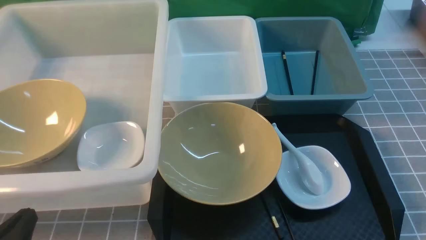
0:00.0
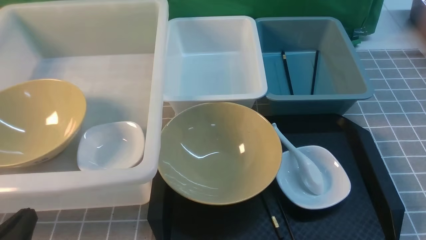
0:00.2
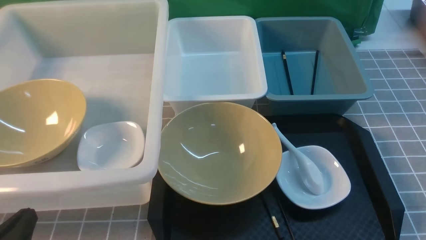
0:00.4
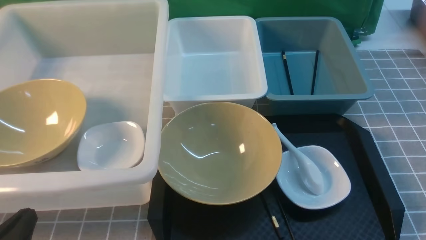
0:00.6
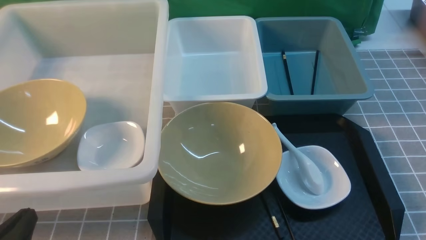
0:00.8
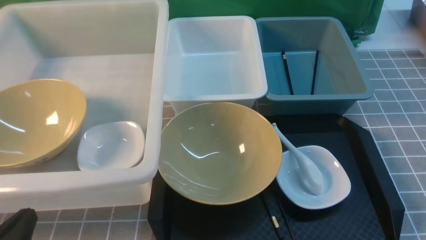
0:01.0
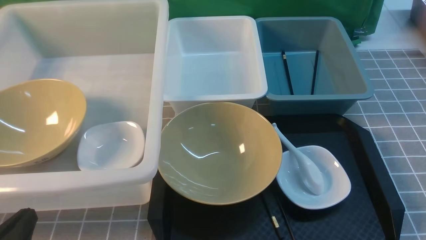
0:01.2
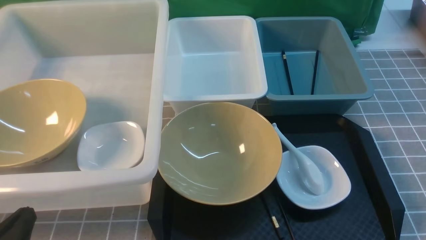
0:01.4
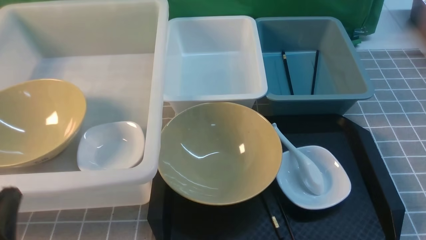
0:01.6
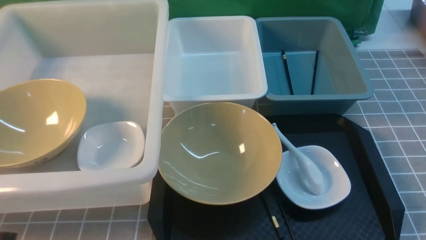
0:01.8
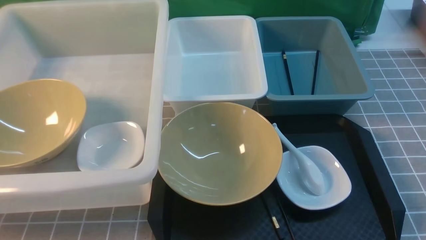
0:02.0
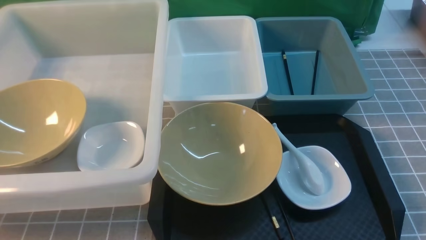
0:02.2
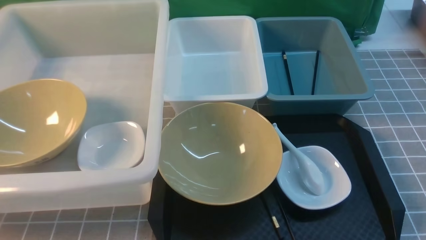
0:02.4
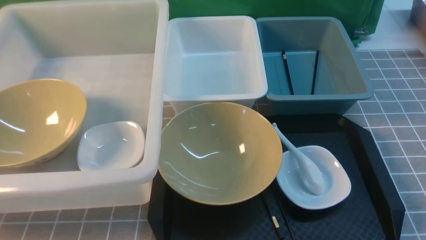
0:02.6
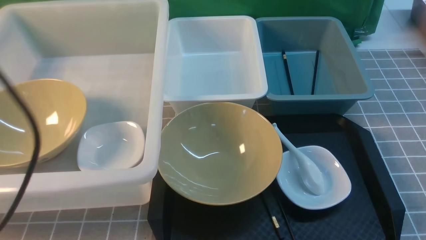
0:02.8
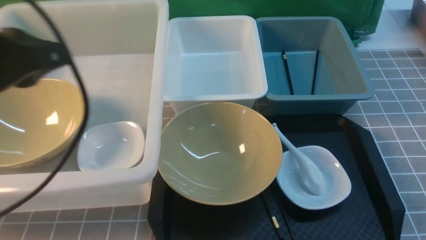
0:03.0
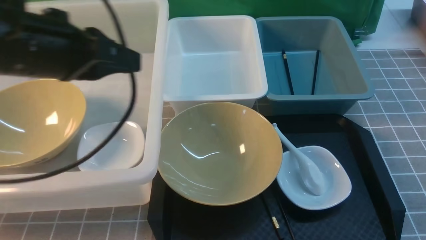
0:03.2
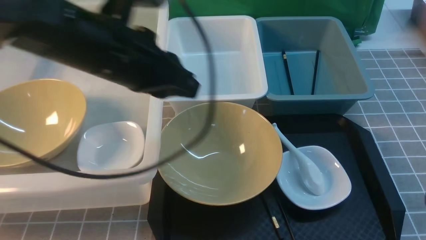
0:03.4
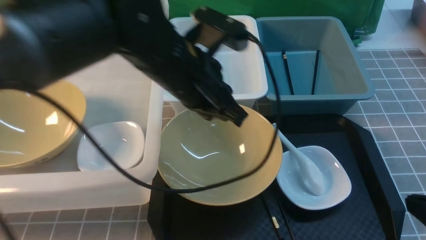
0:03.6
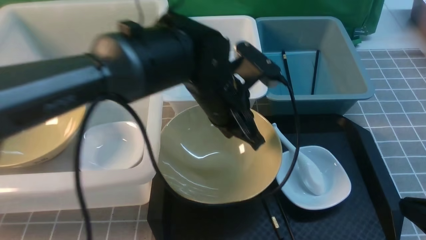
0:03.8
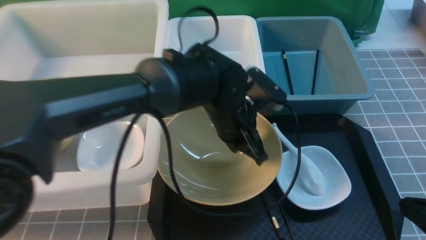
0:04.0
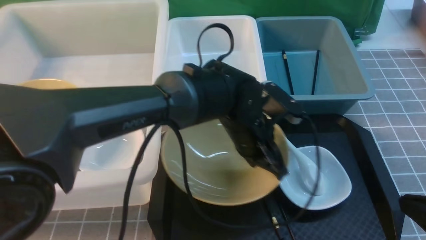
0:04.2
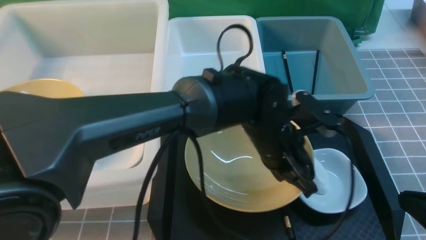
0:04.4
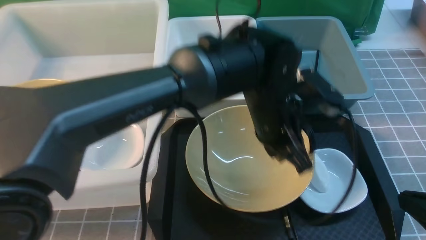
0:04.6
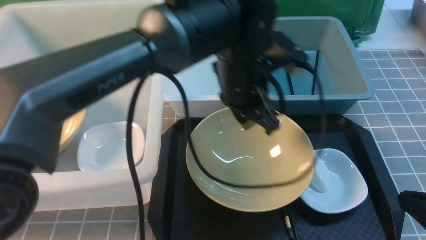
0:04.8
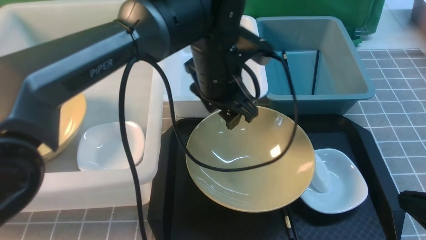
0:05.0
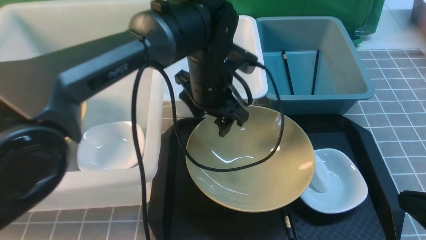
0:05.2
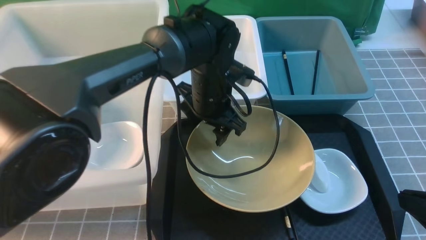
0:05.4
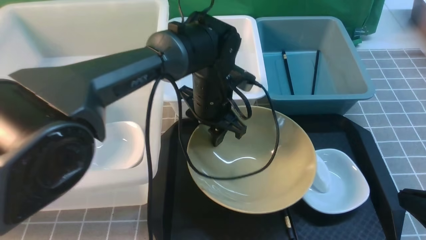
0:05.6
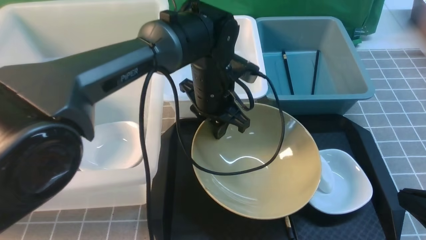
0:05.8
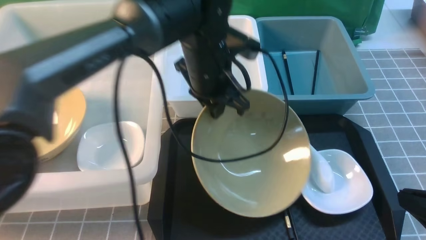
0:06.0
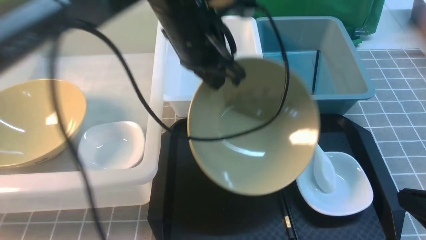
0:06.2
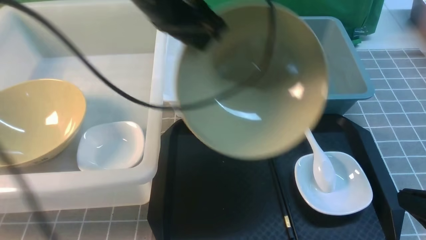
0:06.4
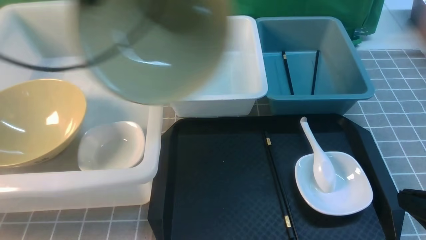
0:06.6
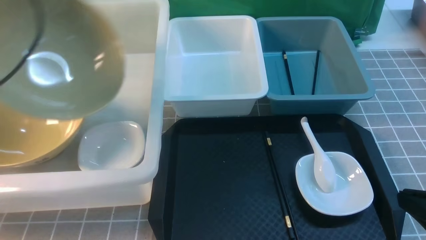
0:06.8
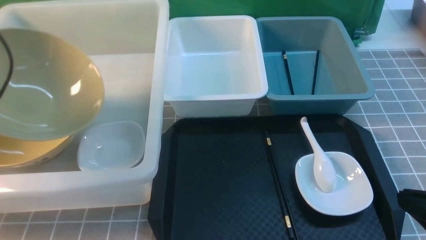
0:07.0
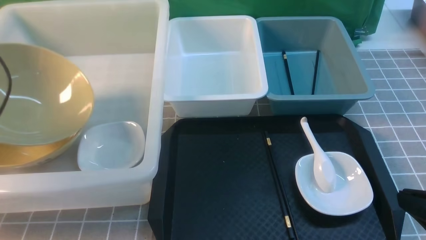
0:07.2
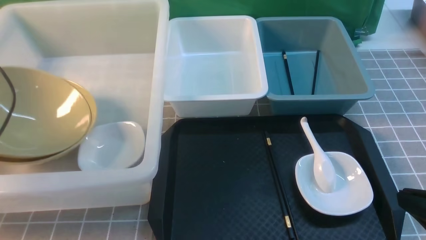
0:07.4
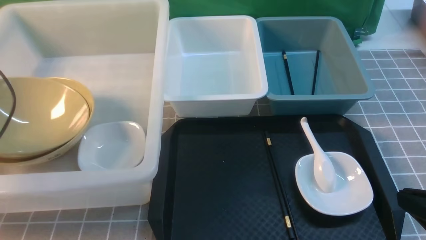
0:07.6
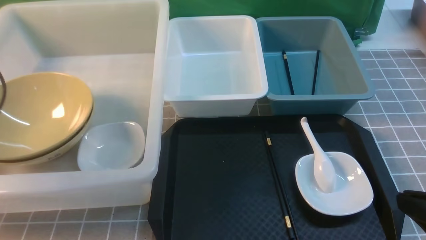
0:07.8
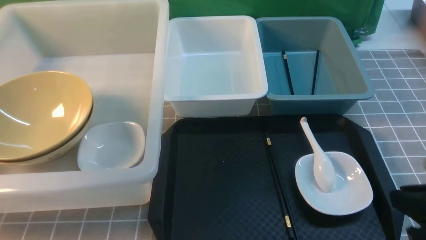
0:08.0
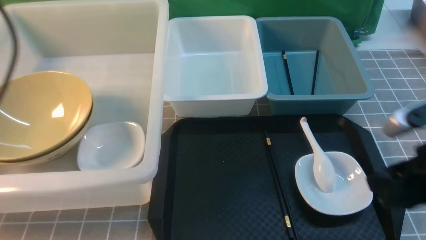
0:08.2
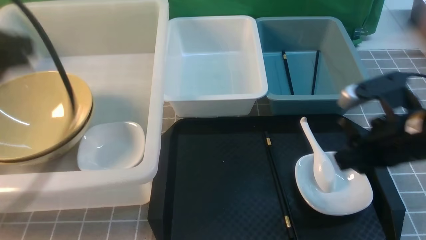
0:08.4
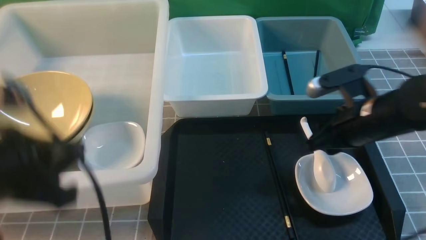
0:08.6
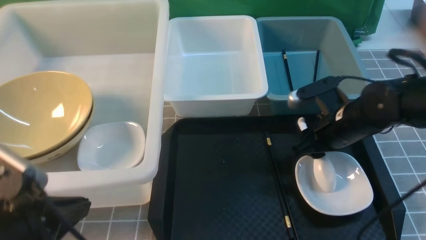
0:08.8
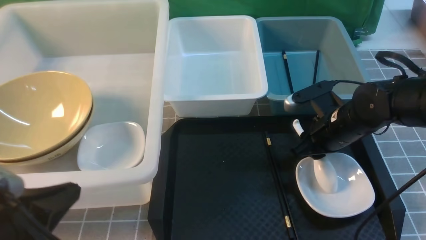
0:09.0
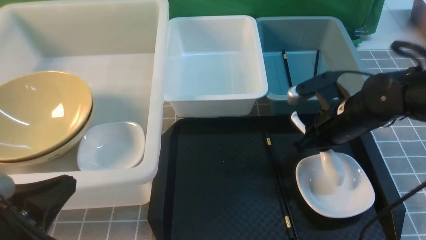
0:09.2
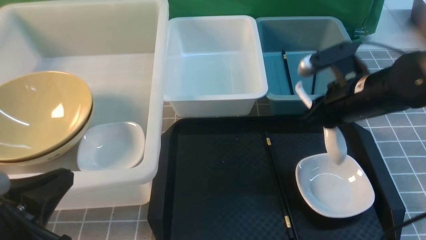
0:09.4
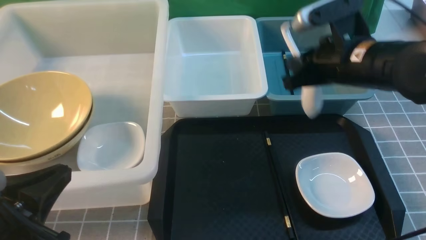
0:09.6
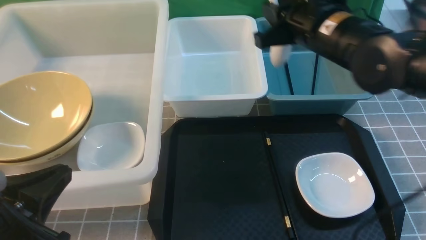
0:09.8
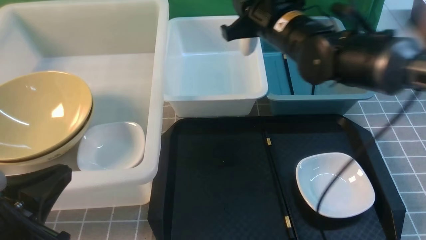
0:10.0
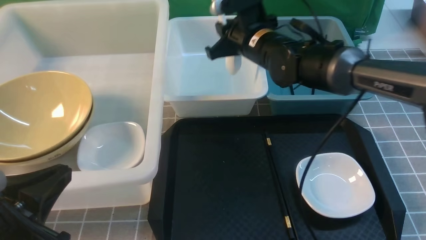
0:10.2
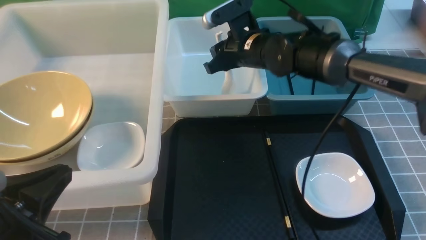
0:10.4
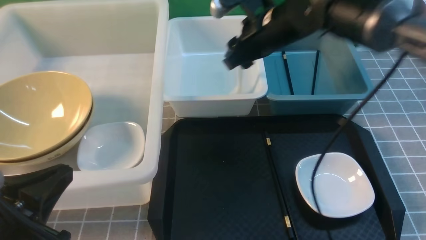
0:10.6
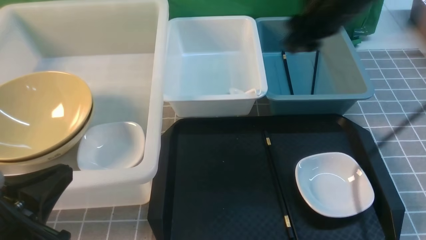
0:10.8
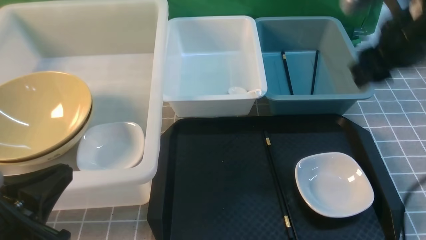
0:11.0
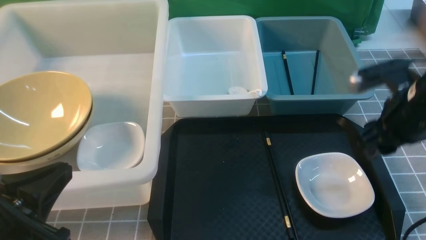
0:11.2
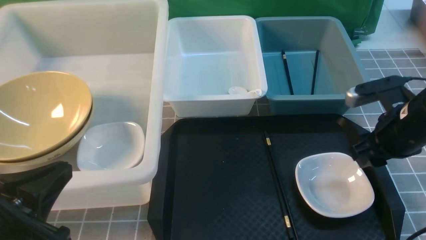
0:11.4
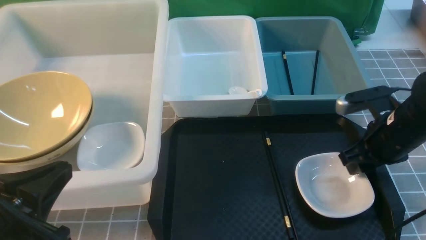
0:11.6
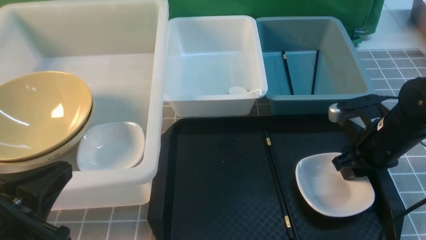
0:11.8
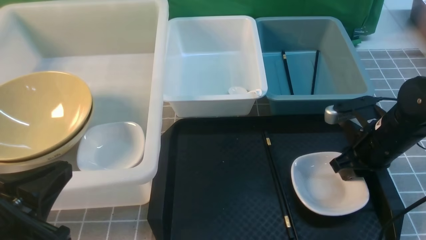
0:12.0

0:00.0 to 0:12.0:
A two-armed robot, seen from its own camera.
Task of the whole recording: on grey table put chopsticks spoon bowls plates into blue grey white boxes.
Step, 0:00.0 to 0:05.6: use the left arm to grab the yellow noodle bowl on the left.
Step, 0:06.0 to 0:08.0: use the left arm to put the noodle bowl into the large storage box on the left.
Step, 0:08.2 to 0:09.6: use the right arm to grab the soup spoon in the middle.
Step, 0:09.8 to 0:10.6: use the right arm to put the soup spoon into the small storage box in the middle.
0:00.0 to 0:01.6: The grippers move only a little.
0:01.6 to 0:03.0: The left gripper moves upward and forward, some 25 cm.
0:03.0 to 0:04.4: The left gripper moves to the right and downward, some 35 cm, while the right gripper changes place by approximately 5 cm.
0:04.4 to 0:06.0: The left gripper heads to the left, upward and forward, covering roughly 15 cm, and opens and closes again.
0:06.0 to 0:07.6: The left gripper heads to the left, covering some 40 cm, and opens up.
0:07.6 to 0:09.0: The left gripper shifts about 25 cm backward and to the right, and closes. The right gripper is displaced forward by roughly 25 cm, and opens.
0:09.0 to 0:10.4: The right gripper travels to the left, forward and upward by some 20 cm.
0:10.4 to 0:12.0: The right gripper is displaced to the right, backward and downward by some 25 cm.

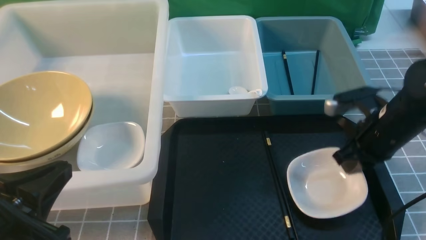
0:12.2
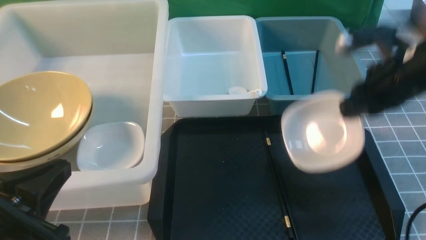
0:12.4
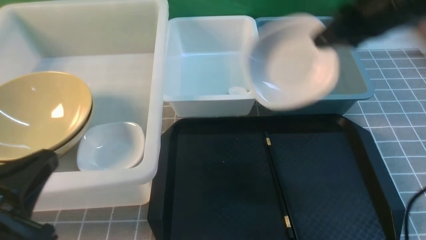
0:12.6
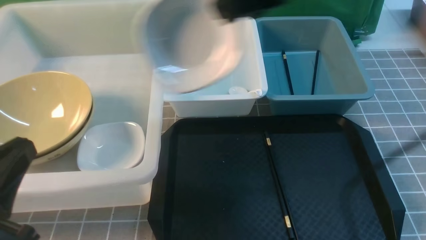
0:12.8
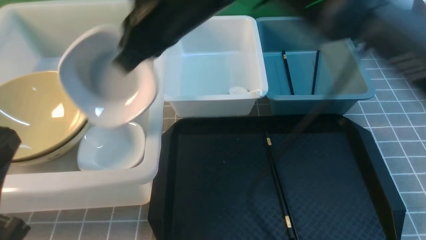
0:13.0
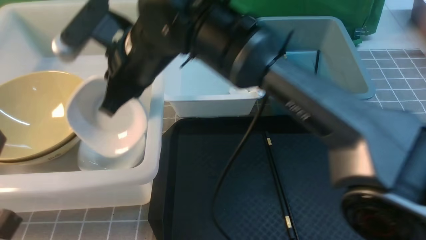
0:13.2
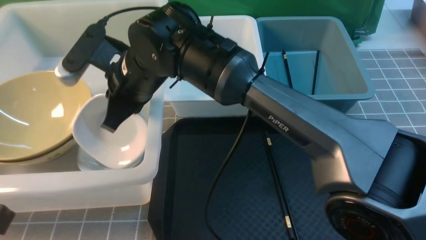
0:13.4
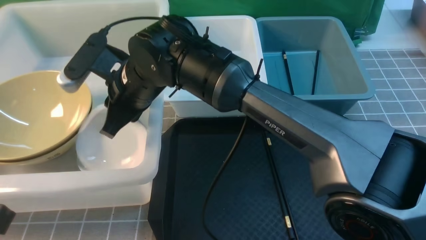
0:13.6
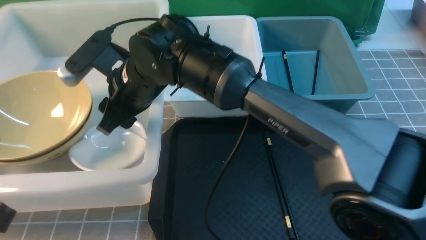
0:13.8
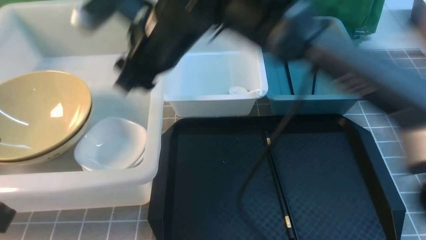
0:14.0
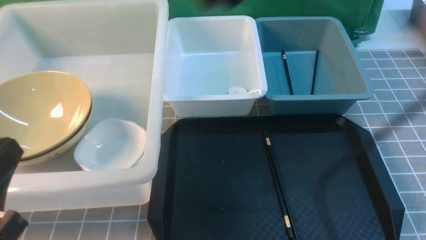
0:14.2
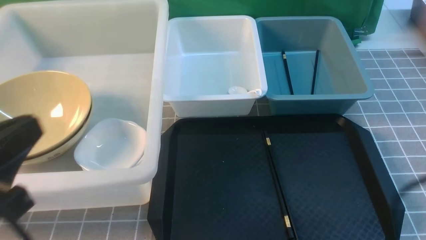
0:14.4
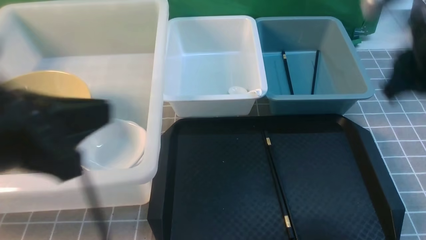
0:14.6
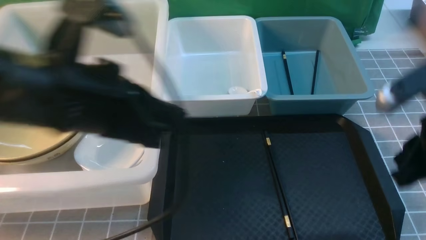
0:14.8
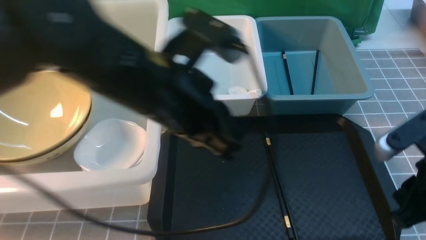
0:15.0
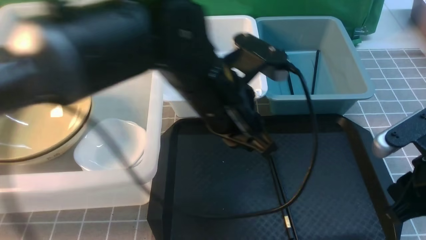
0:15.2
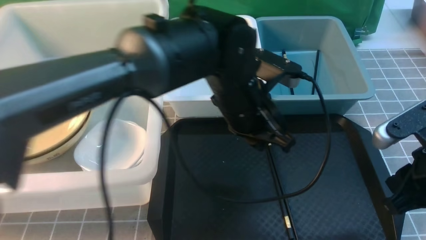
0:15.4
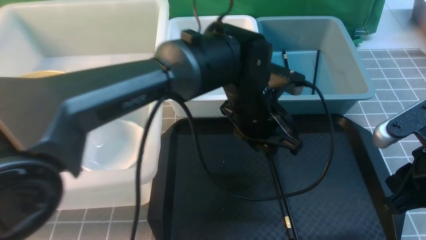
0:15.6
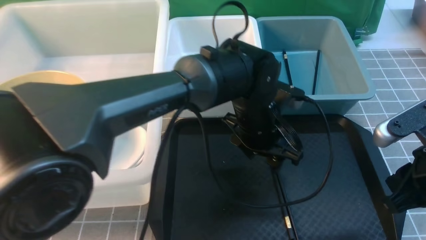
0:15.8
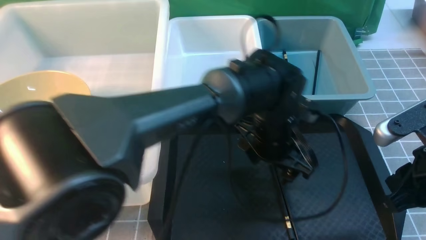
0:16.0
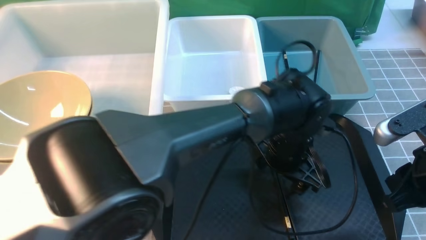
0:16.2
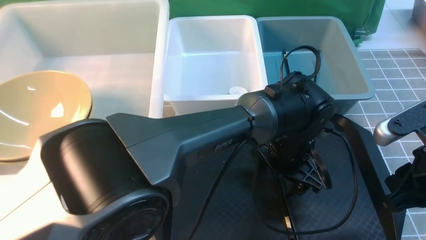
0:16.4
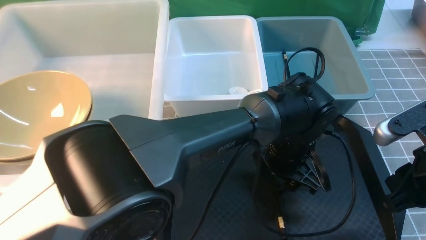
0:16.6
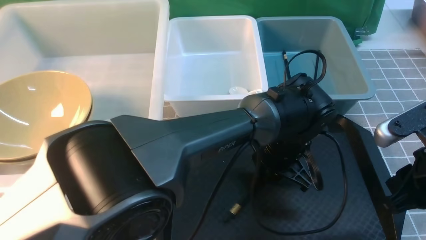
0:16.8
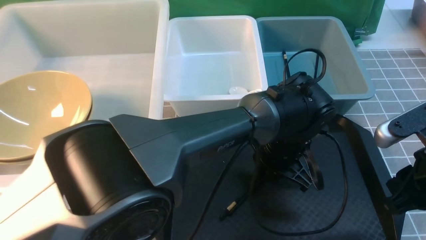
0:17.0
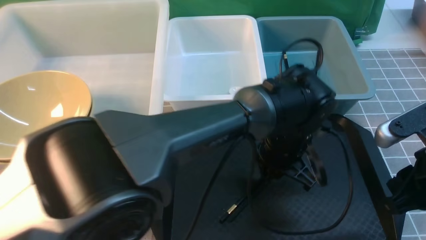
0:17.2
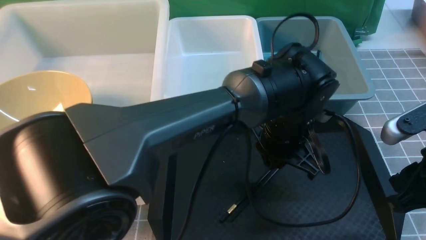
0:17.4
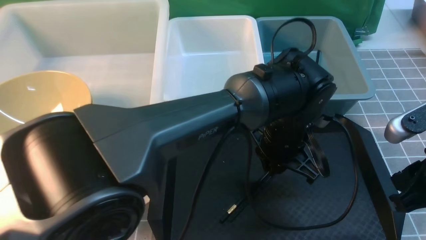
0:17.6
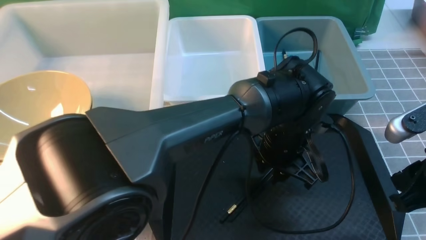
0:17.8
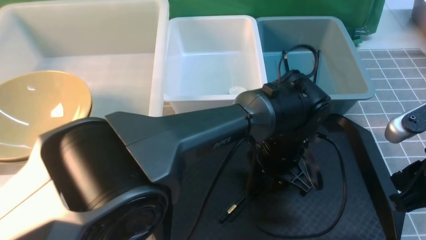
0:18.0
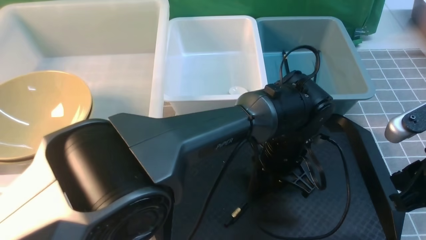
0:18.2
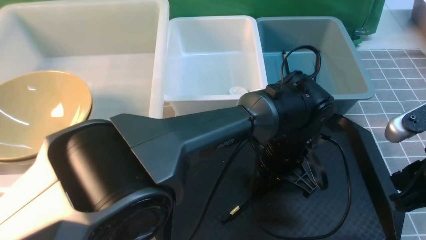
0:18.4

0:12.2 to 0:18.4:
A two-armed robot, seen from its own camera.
Task of the whole recording: on grey table put chopsticks spoon bowls plates into blue grey white boxes.
Step, 0:12.4 to 0:13.8: use the right arm to put the plate into the large storage box on the left.
0:12.2 to 0:13.8: The right gripper travels to the left by some 30 cm, and opens its fingers.
0:13.8 to 0:15.4: The left gripper moves to the right and forward, about 35 cm, while the right gripper is displaced to the right and backward by some 35 cm, and closes its fingers.
0:15.4 to 0:16.8: The left gripper goes about 10 cm downward and to the right, and opens and closes again.
0:16.8 to 0:18.4: The grippers move only a little.
